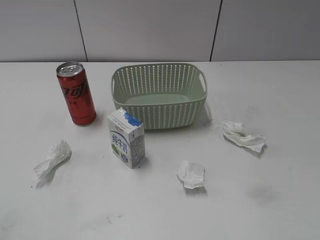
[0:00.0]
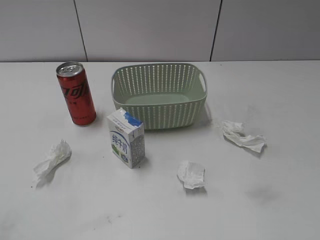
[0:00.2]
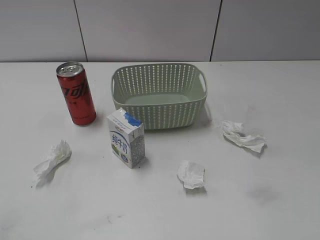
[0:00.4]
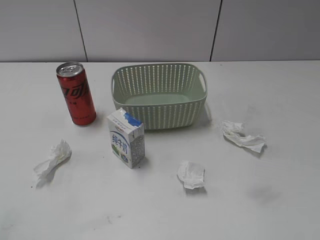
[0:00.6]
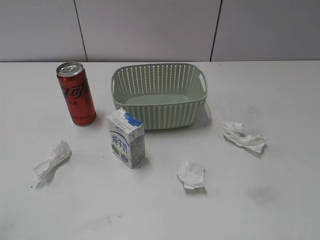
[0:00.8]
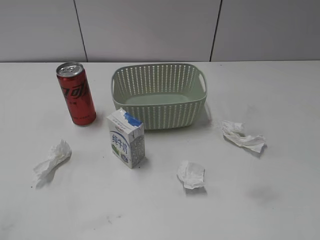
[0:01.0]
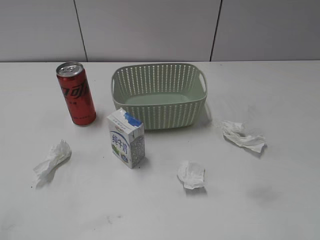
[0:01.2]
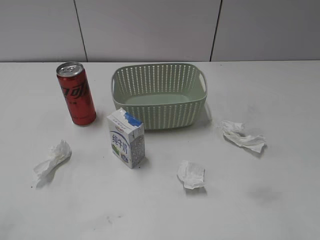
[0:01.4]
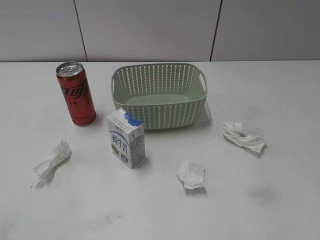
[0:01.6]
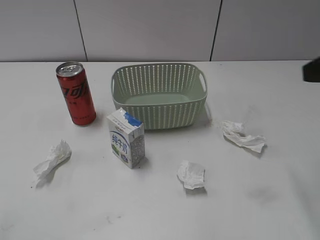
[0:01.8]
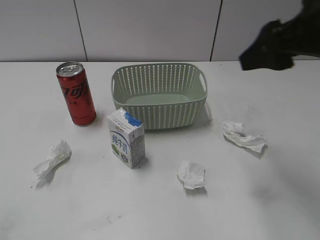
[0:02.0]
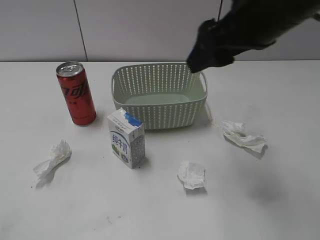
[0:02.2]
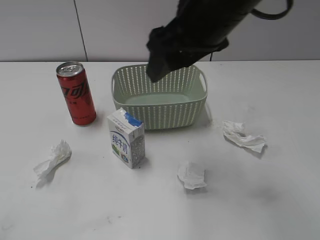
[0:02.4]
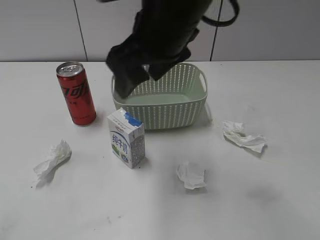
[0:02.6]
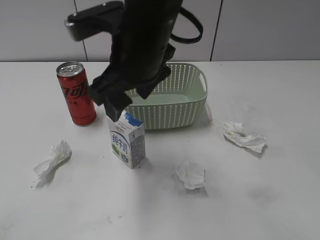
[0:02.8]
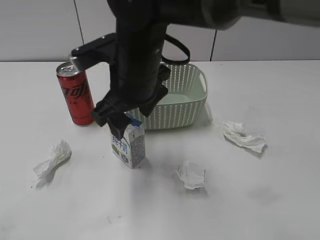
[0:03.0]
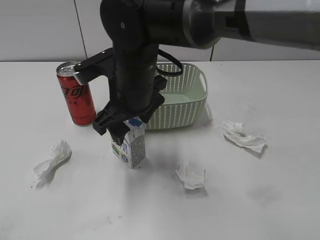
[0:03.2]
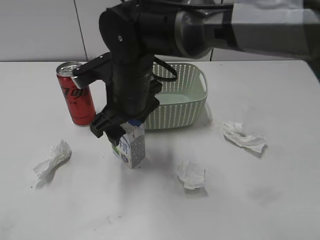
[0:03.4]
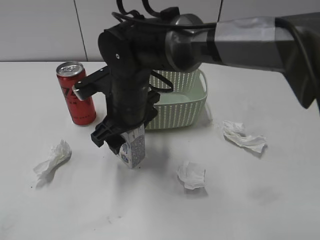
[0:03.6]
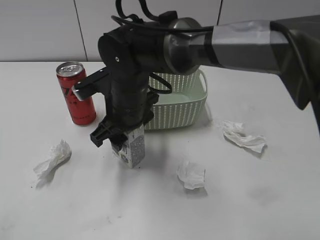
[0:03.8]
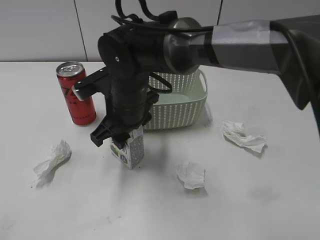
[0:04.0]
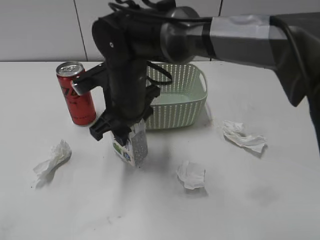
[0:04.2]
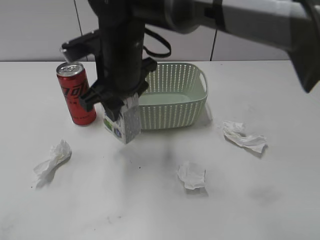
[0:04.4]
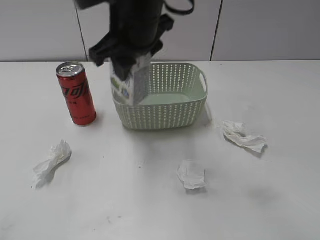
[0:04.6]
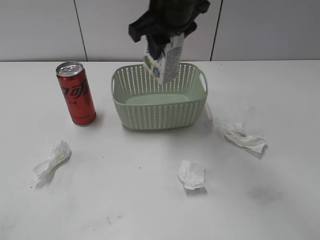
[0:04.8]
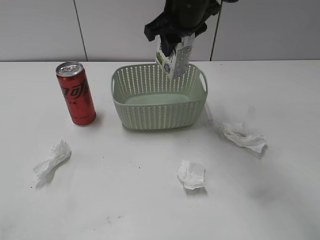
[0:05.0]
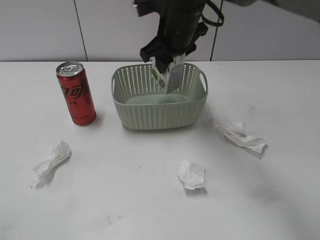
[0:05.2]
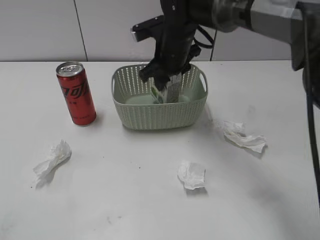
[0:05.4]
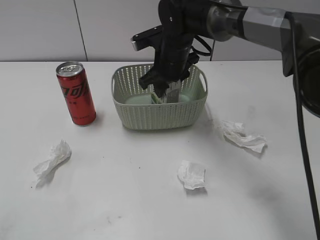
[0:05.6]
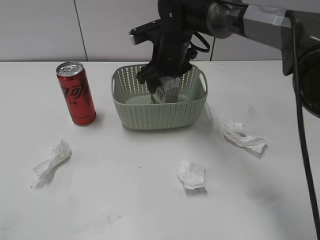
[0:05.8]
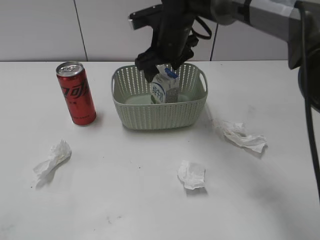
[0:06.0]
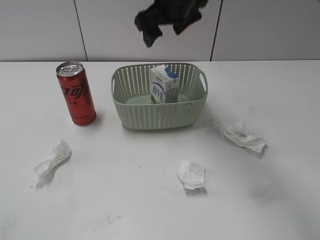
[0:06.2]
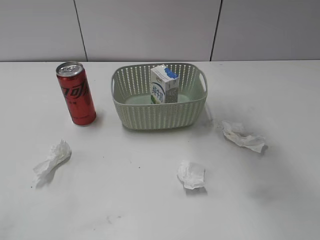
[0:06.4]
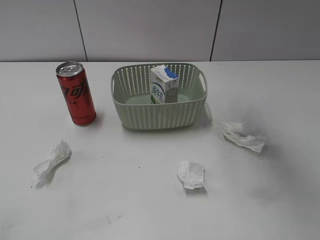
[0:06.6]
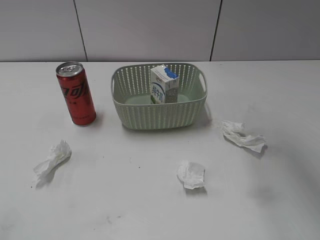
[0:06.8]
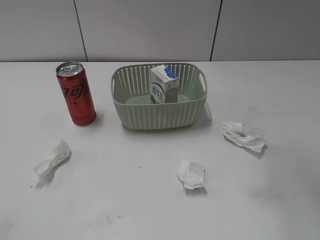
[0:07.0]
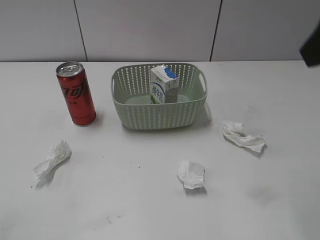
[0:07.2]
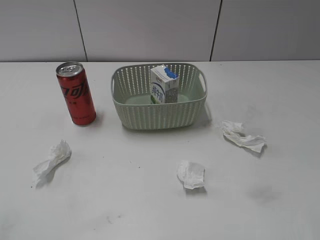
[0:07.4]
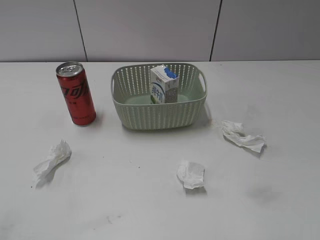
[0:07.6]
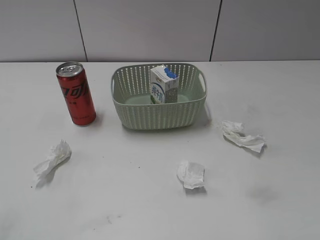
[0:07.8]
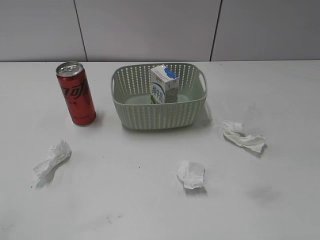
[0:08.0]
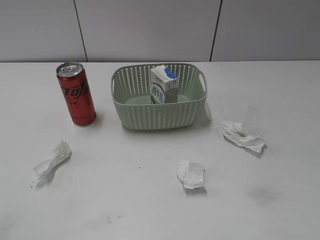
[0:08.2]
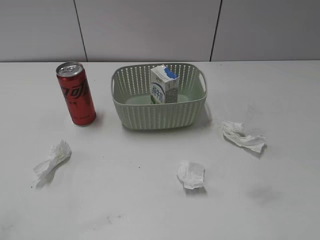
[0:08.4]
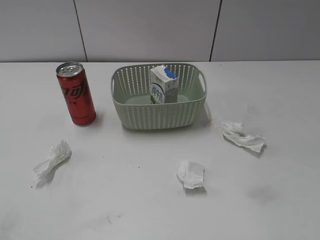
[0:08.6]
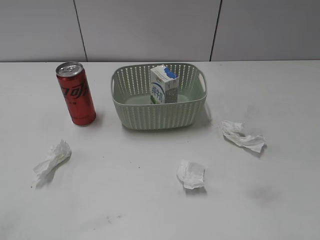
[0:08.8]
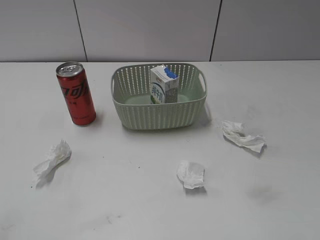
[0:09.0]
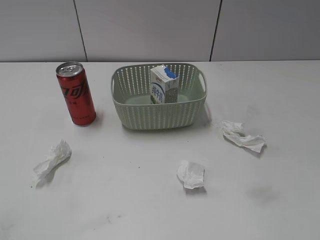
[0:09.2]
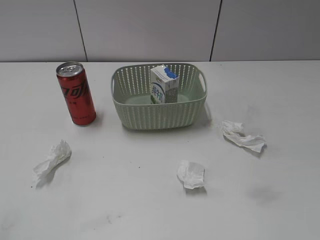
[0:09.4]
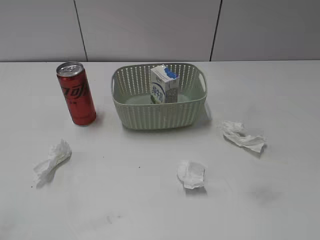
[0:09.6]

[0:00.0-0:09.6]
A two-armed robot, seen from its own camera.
Step, 0:01.8 to 0:03.8: Grasp the milk with right gripper.
Step, 0:04.0 to 0:06.0: Place the milk in the basket with right gripper.
0:01.6 to 0:03.2: The right gripper travels to the left and forward by about 35 cm.
0:03.2 to 0:04.8: The right gripper goes roughly 15 cm upward, forward and to the right, and closes its fingers.
0:04.8 to 0:06.4: The right gripper reaches about 15 cm downward, then returns, and opens its fingers.

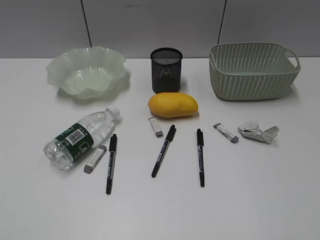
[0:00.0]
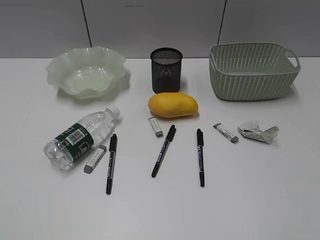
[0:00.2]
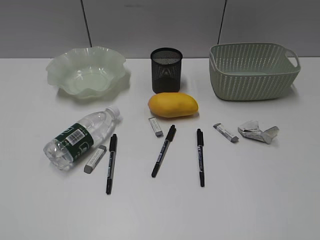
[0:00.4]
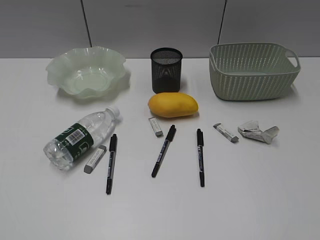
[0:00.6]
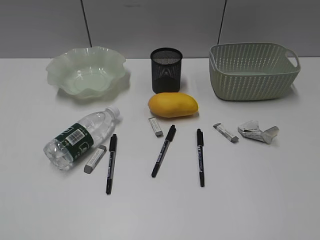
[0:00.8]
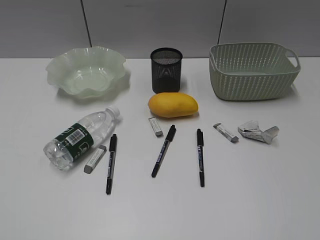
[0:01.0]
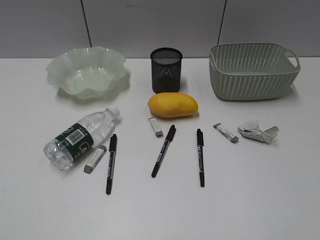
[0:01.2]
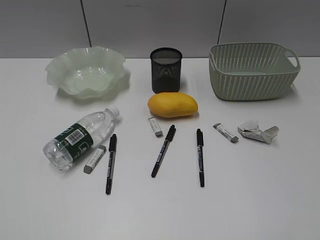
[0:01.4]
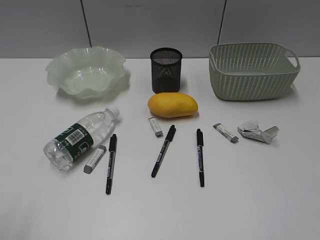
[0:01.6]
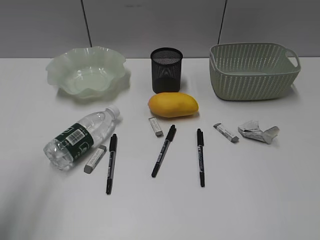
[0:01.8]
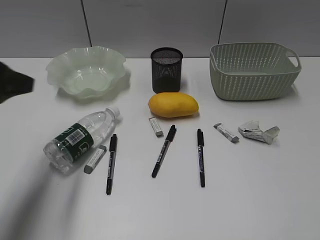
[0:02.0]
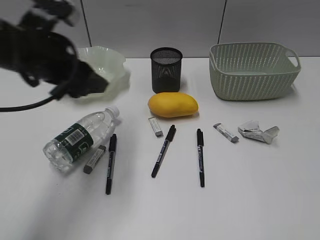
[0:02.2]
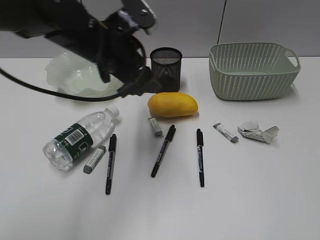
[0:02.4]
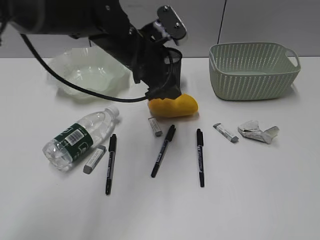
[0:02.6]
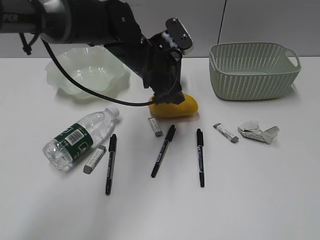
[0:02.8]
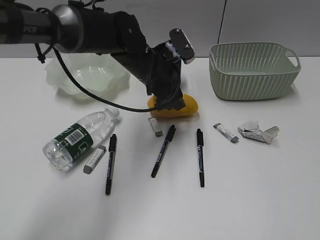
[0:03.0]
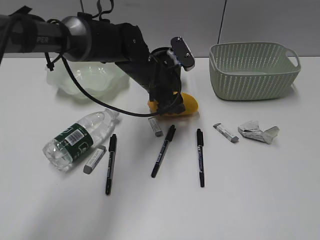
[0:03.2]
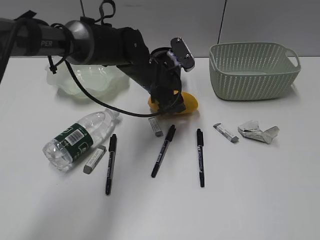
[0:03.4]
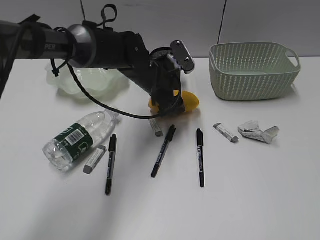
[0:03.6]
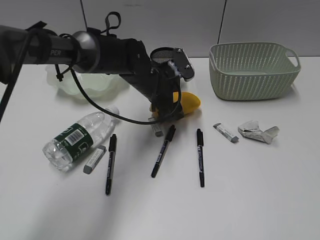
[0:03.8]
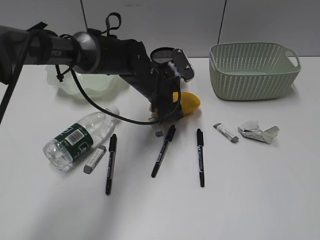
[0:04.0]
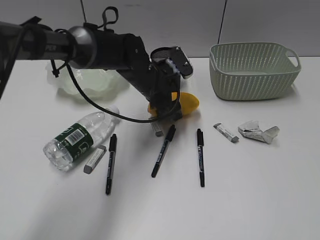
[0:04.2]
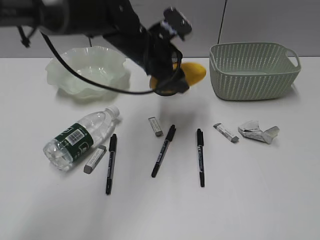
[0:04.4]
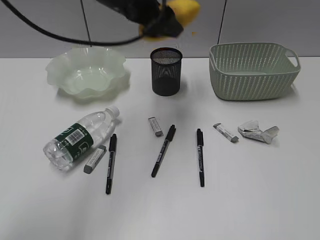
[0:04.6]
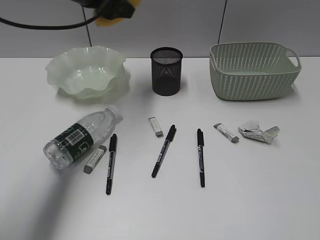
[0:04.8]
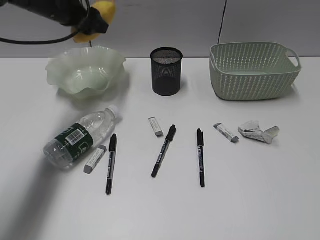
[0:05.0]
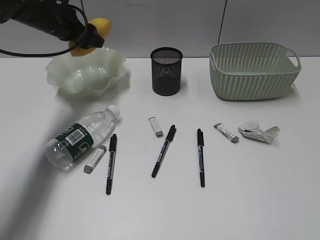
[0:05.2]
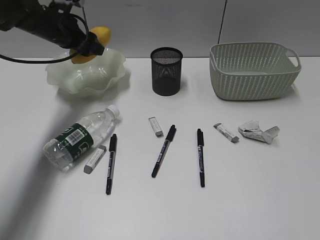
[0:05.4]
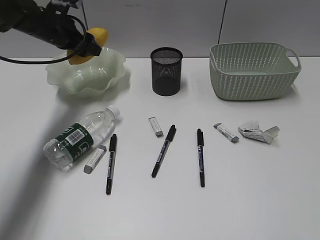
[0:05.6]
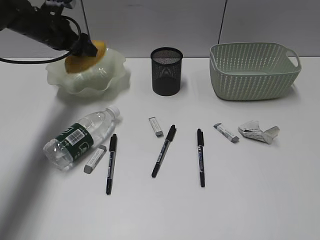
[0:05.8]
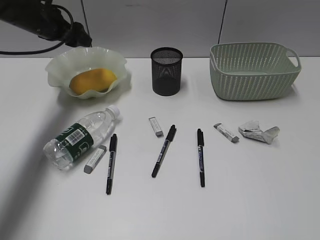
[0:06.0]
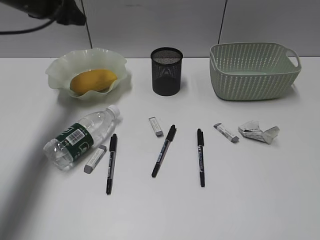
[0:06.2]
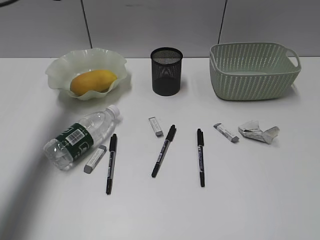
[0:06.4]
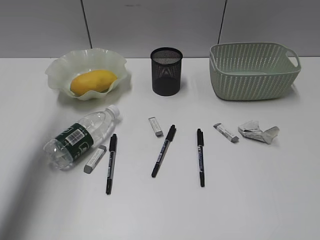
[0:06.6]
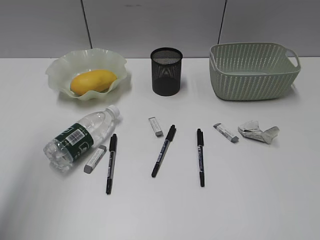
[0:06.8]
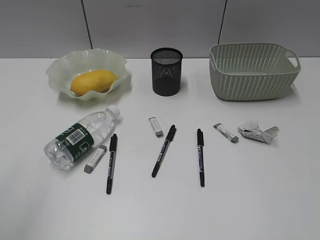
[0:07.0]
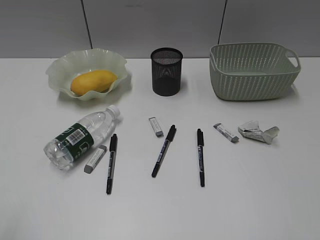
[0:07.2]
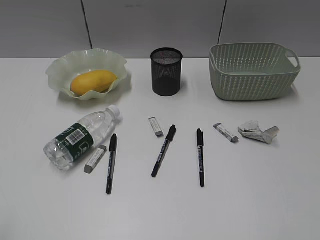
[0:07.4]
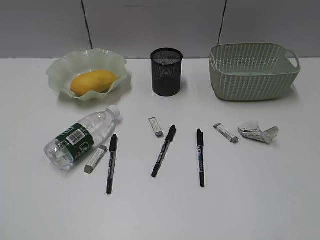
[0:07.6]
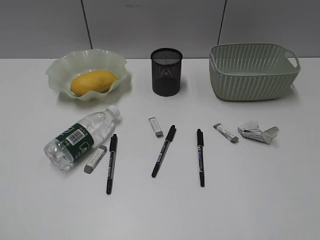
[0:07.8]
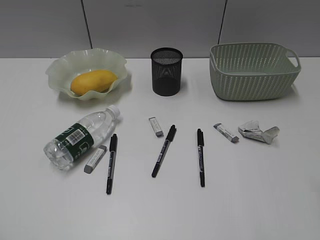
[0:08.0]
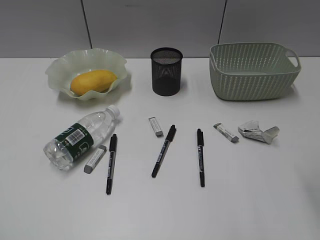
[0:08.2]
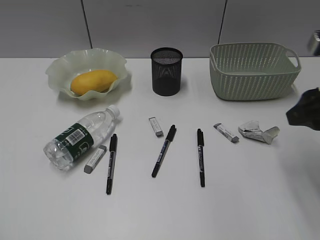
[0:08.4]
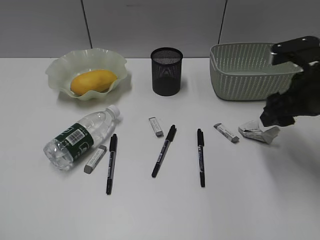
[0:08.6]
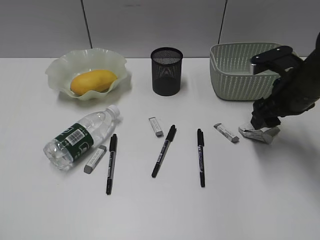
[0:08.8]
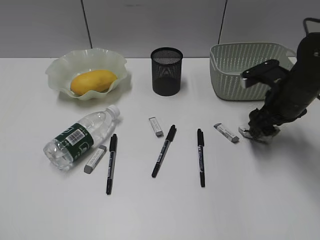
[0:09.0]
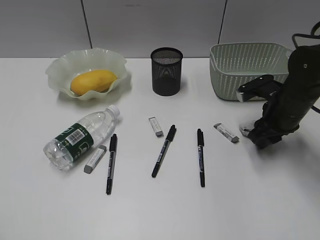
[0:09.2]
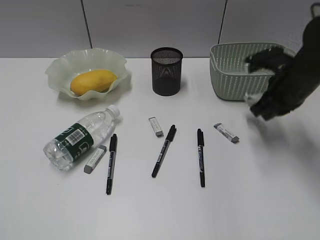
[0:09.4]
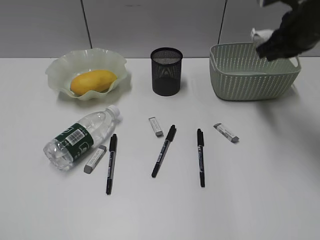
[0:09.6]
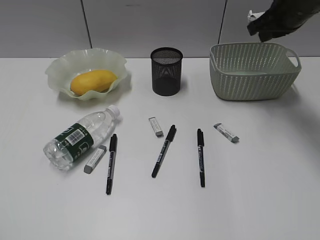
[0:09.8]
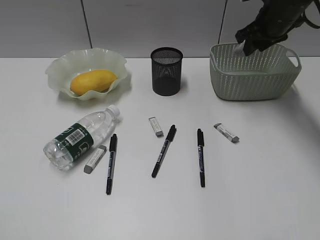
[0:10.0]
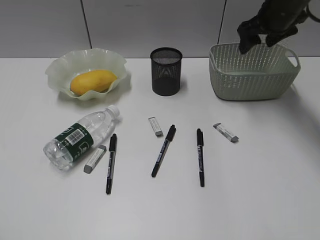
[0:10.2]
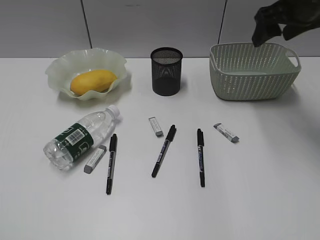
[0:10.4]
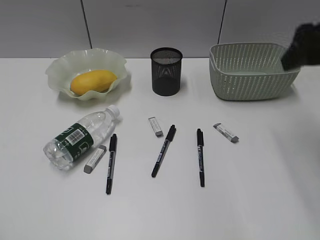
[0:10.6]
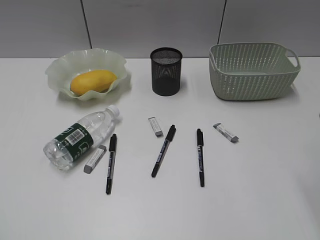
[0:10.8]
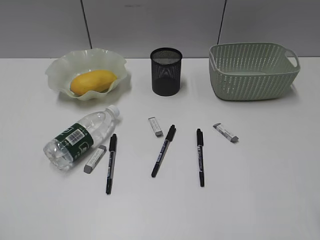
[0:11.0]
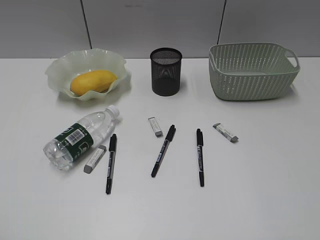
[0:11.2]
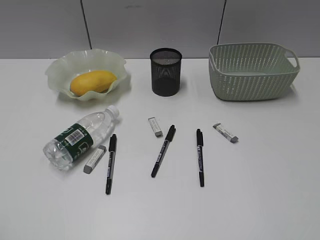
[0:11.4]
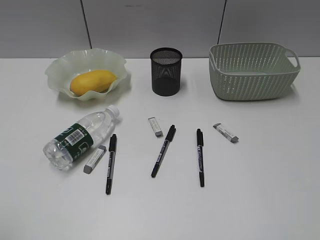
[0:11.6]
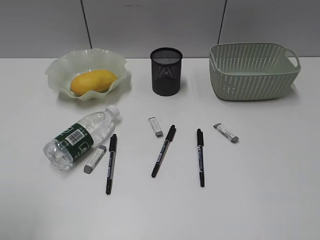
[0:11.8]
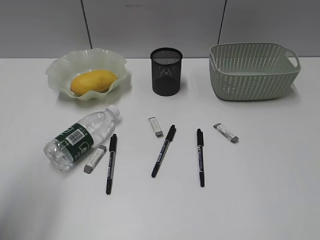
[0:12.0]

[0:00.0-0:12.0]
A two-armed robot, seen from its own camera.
Step, 0:01.4 to 0:04.2: Grasp the mango with left gripper.
Step, 0:04.4 to 0:06.2: Place the mango in the plate with left gripper.
Step, 0:06.4 to 0:09.2: Grasp the waste paper with right gripper.
Step, 0:09.4 to 0:10.2: Place the waste paper in the basket with right gripper.
0:01.6 to 0:03.0: The left gripper moves forward and to the right, roughly 50 cm, and opens its fingers.
0:03.0 to 0:04.4: The grippers stay close to where they were, moving slightly.
0:04.4 to 0:06.0: The left gripper shifts about 25 cm to the left and forward.
0:06.0 to 0:07.6: The left gripper is displaced backward by about 50 cm.
0:07.6 to 0:09.0: The right gripper shifts some 40 cm forward and downward, and opens.
0:09.0 to 0:10.4: The right gripper goes about 15 cm upward and forward, and closes, then opens again.
0:10.4 to 0:12.0: The right gripper is displaced backward by about 40 cm; the left gripper goes approximately 15 cm forward.
